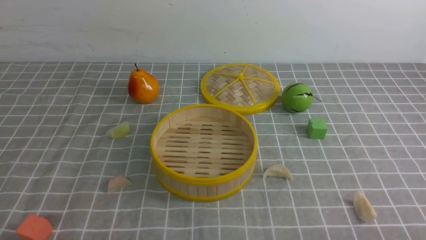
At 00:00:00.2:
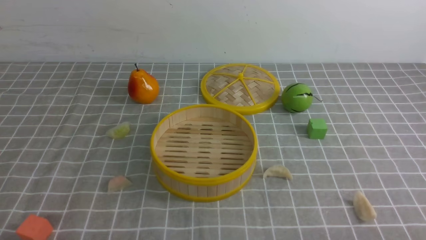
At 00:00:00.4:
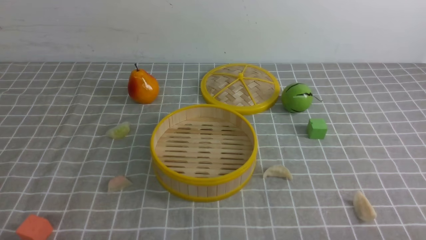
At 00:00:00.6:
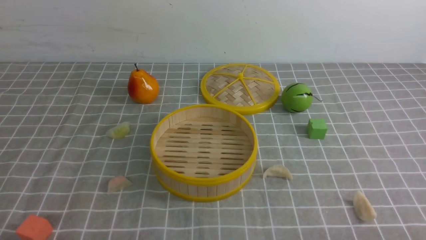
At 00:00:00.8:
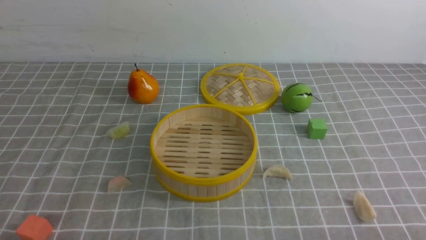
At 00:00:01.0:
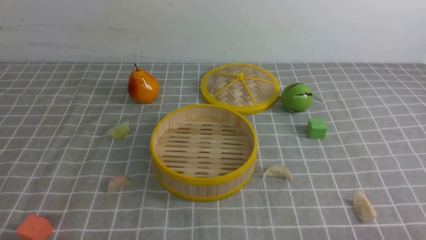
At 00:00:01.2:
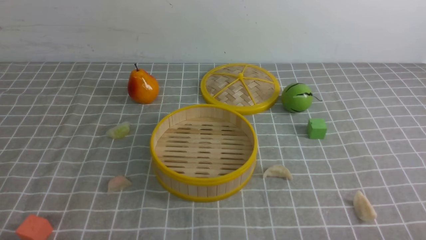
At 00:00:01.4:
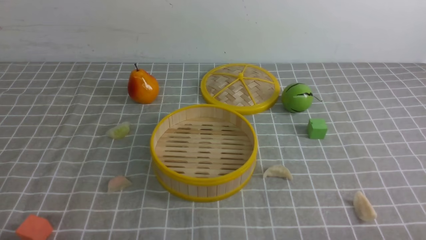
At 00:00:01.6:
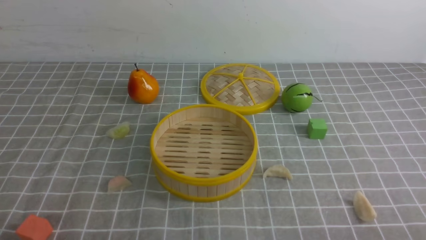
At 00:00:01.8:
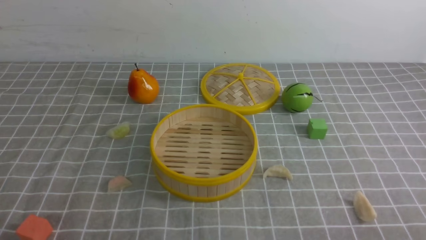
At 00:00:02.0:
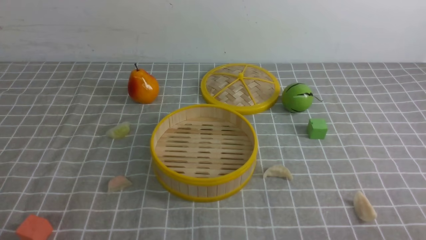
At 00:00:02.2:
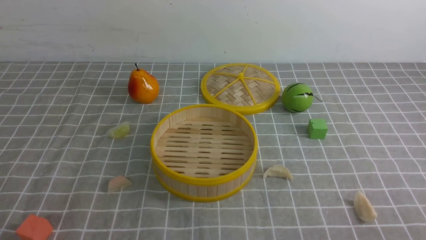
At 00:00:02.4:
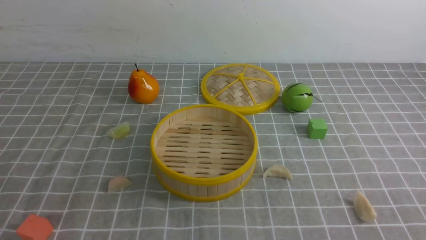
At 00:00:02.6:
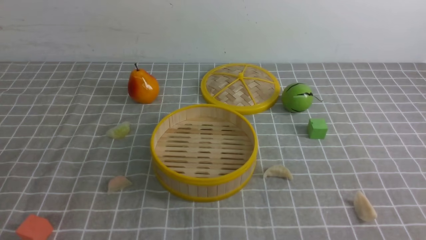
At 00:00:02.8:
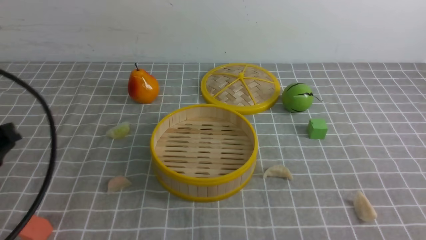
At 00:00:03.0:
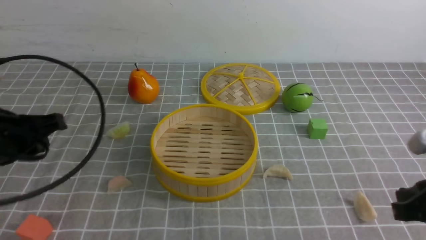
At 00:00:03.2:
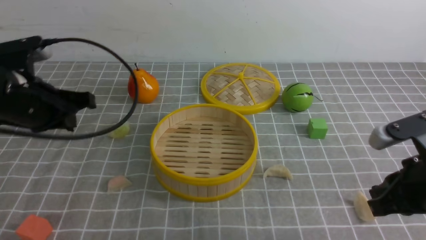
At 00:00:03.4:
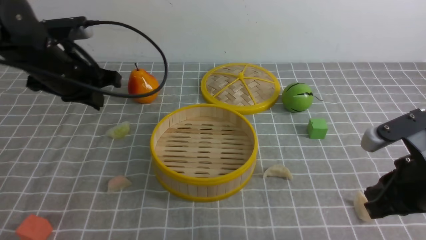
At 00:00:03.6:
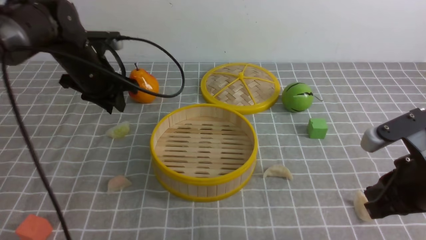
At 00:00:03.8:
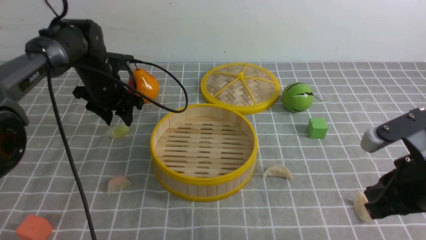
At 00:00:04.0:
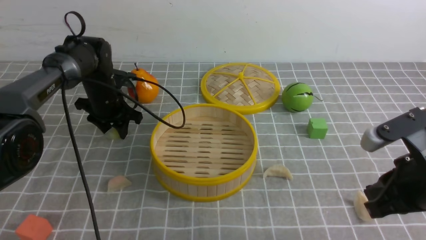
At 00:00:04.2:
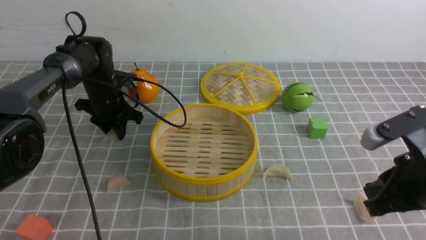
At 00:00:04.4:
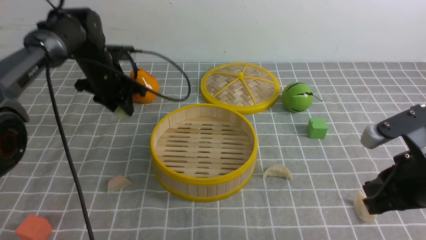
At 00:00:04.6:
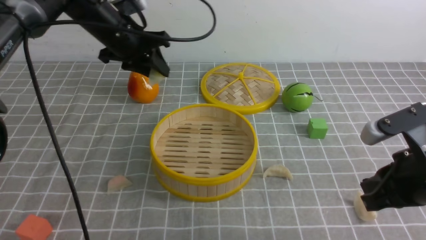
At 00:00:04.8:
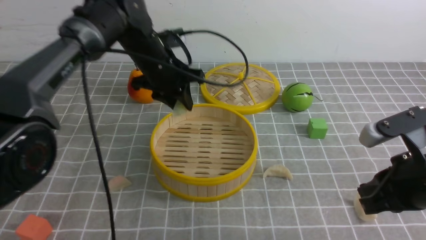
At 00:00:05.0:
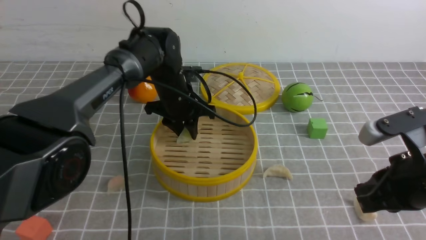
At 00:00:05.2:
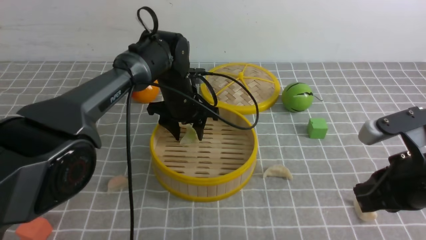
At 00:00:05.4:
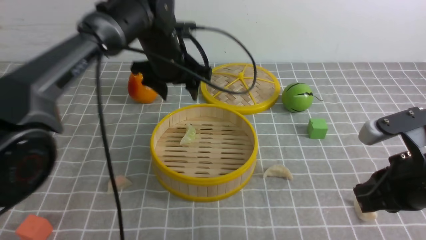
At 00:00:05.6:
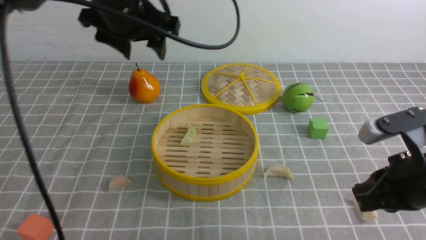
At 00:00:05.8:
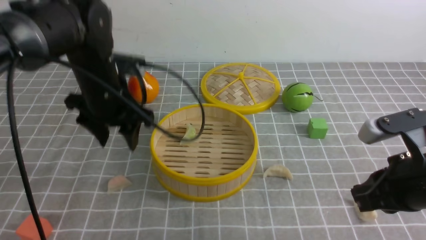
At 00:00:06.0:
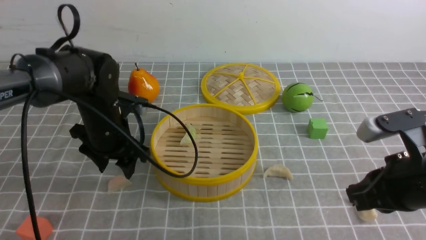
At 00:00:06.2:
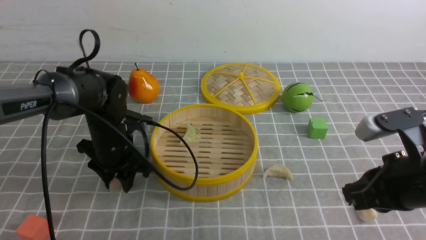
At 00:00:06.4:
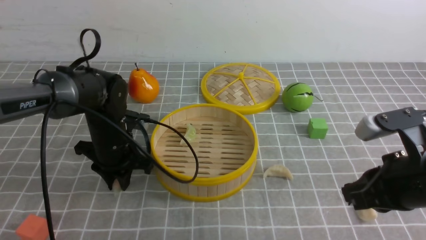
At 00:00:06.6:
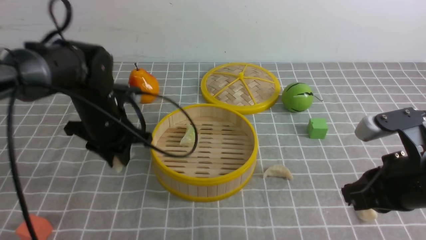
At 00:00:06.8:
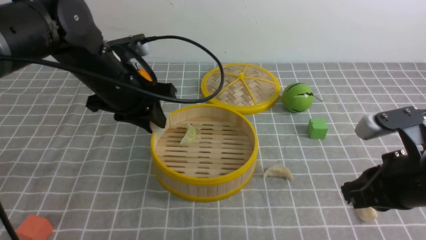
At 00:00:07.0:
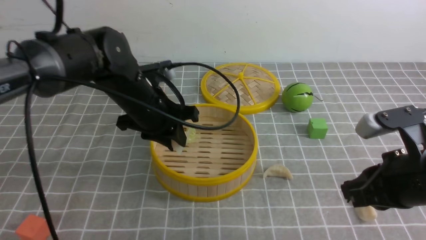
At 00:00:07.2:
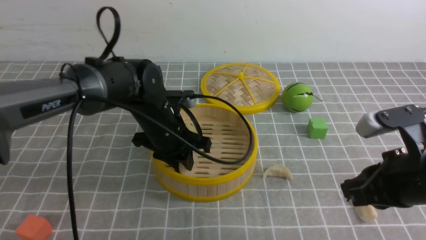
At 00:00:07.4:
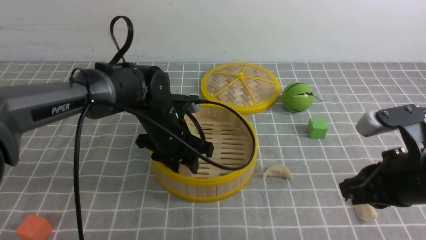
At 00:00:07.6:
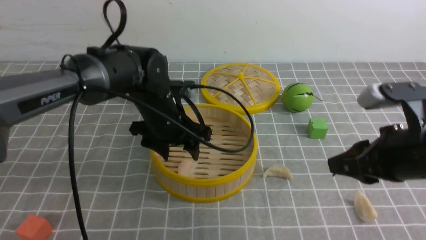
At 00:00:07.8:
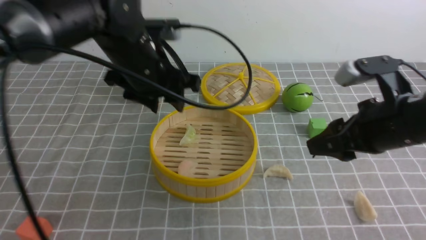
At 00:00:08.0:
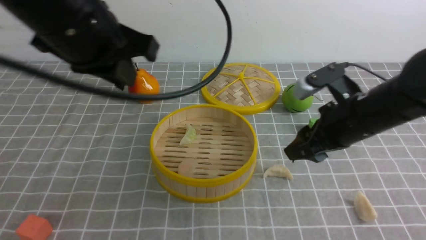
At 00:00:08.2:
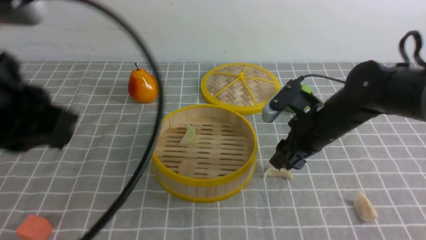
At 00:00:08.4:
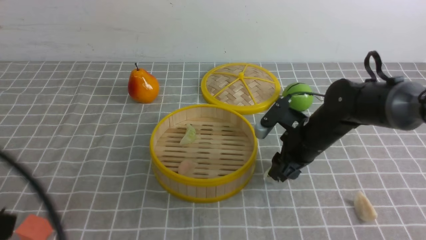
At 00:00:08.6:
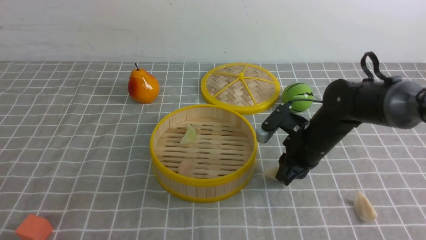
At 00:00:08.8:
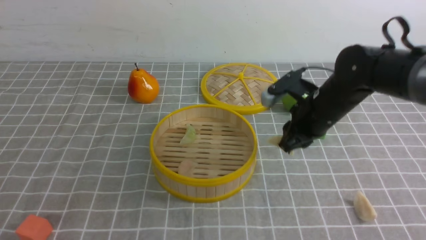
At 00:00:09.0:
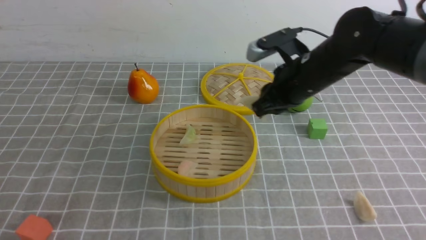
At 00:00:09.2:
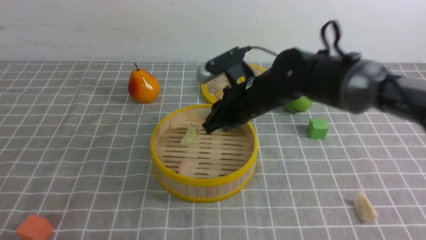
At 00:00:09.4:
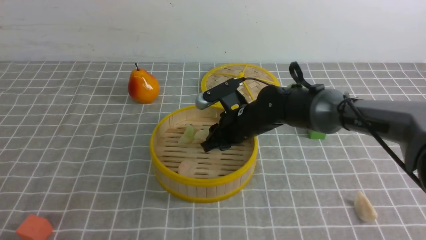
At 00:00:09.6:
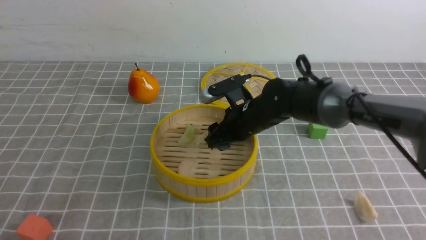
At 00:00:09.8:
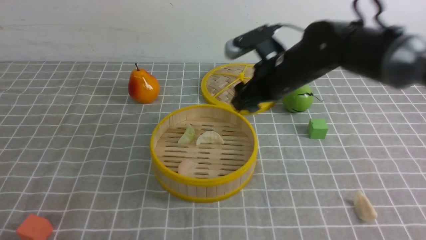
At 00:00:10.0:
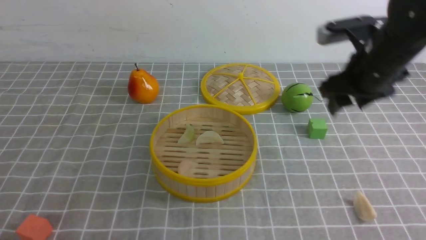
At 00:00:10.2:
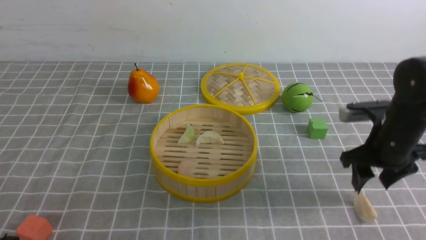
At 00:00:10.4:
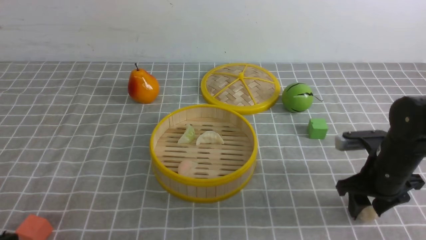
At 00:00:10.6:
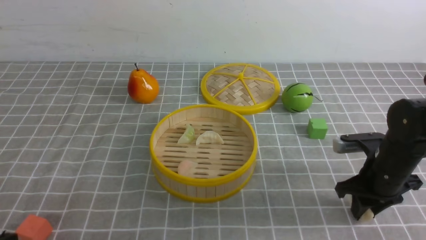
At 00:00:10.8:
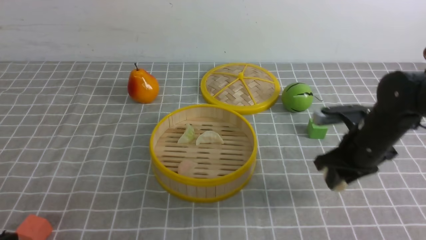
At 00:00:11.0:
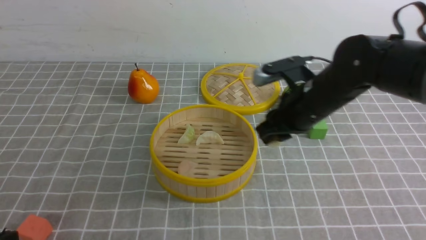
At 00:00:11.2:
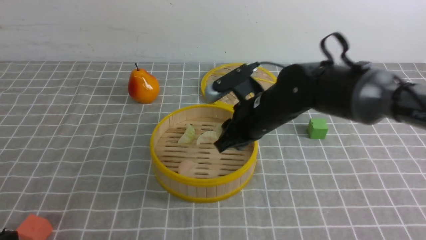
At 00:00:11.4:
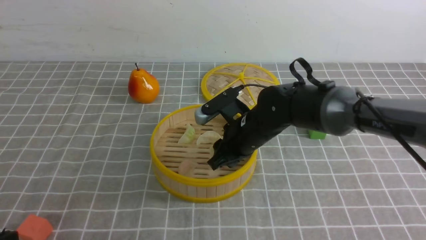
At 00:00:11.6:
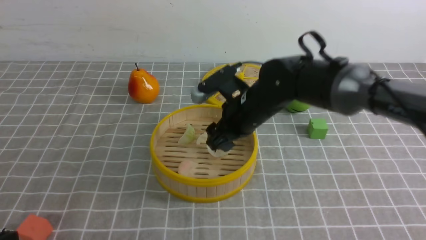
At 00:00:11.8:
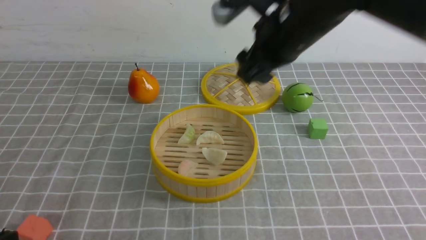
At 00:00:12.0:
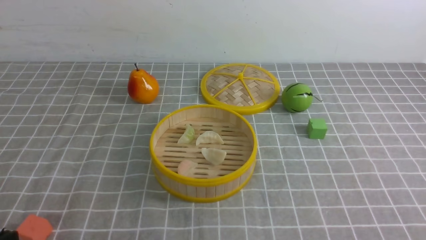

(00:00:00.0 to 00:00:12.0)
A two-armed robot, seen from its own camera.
Task of the whole recording: put the dumplings into the steamer on the table with the grey tablecloth.
Step, 00:00:00.0 - 00:00:04.2: use the left arm to grab a dumpling.
Step, 00:00:04.4 - 00:00:05.6: use the left arm to put the dumpling into the steamer.
Step, 00:00:05.8 - 00:00:06.6: use the left arm to grab a dumpling.
Step, 00:00:06.8 - 00:00:07.8: use the left arm to put the dumpling into the steamer.
Step, 00:00:08.0 - 00:00:08.8: use the right arm to grab a dumpling.
Step, 00:00:09.0 - 00:00:09.6: use the right arm to put the dumpling into the steamer.
Step, 00:00:09.8 - 00:00:10.8: use the right arm to grab a dumpling.
Step, 00:00:11.0 - 00:00:11.8: use the right arm to put the dumpling into the steamer.
00:00:01.6 - 00:00:03.0: Both grippers move forward and upward, some 20 cm. The right gripper closes its fingers.
00:00:03.0 - 00:00:04.4: The left gripper travels forward by roughly 25 cm.
00:00:04.4 - 00:00:06.0: The left gripper goes approximately 10 cm backward, and opens.
00:00:06.0 - 00:00:07.6: The left gripper heads to the right and upward, covering approximately 10 cm, and closes, then reopens. Meanwhile the right gripper opens.
00:00:07.6 - 00:00:09.0: The left gripper is displaced backward and to the left by approximately 40 cm, and closes up, while the right gripper is displaced forward and to the left by about 20 cm, and opens, then closes again.
00:00:09.0 - 00:00:10.4: The right gripper moves to the right, downward and backward, roughly 20 cm, and opens.
00:00:10.4 - 00:00:12.0: The right gripper moves upward, some 30 cm, and closes its fingers.

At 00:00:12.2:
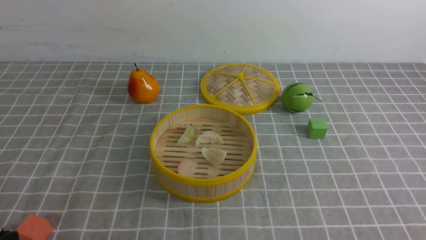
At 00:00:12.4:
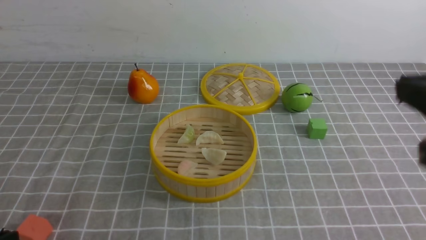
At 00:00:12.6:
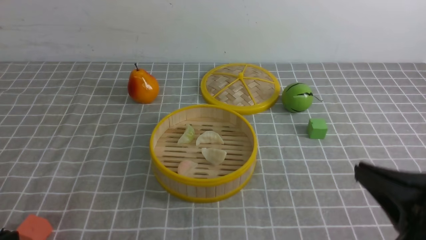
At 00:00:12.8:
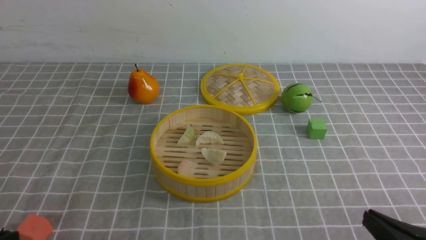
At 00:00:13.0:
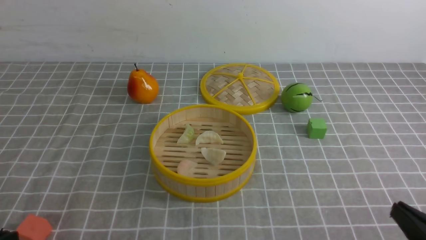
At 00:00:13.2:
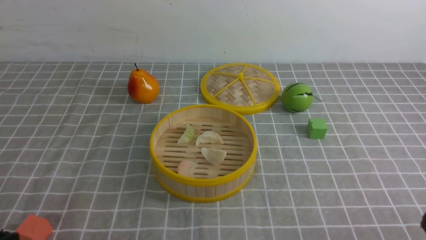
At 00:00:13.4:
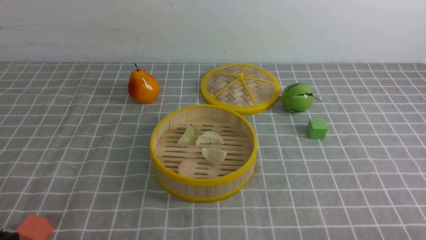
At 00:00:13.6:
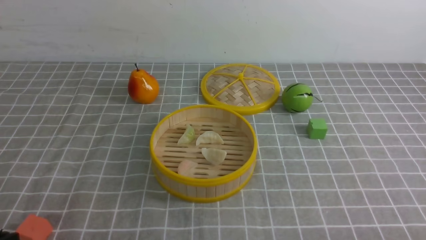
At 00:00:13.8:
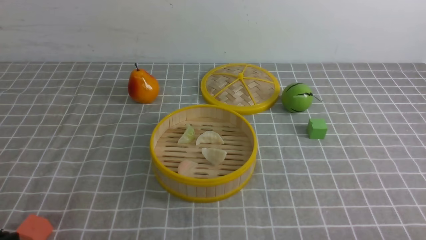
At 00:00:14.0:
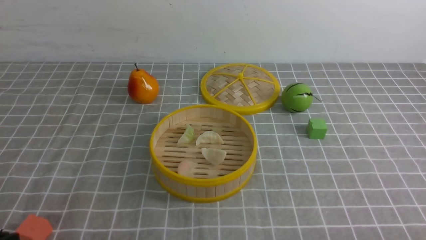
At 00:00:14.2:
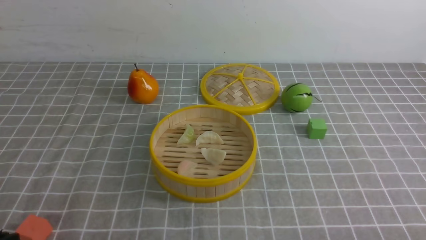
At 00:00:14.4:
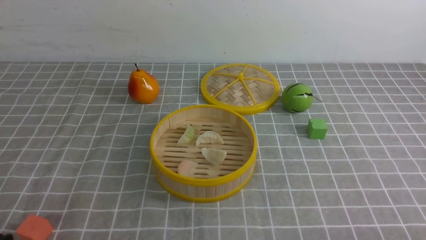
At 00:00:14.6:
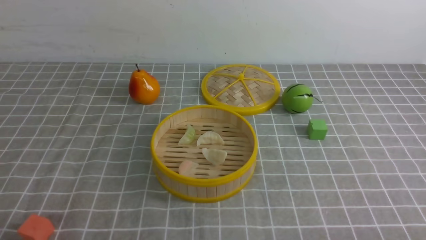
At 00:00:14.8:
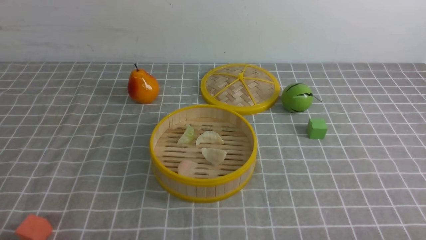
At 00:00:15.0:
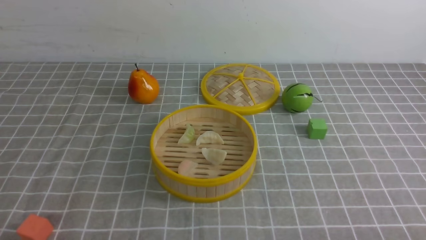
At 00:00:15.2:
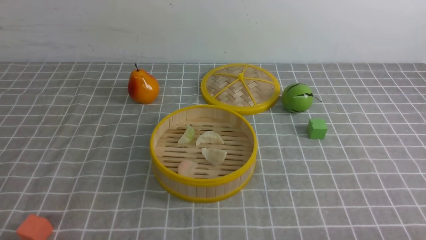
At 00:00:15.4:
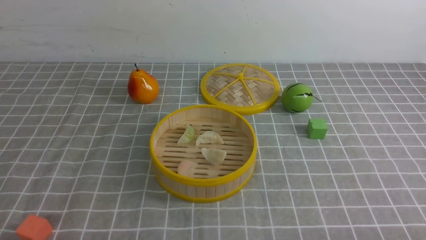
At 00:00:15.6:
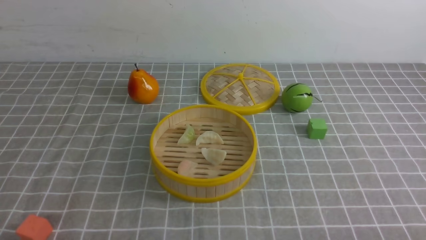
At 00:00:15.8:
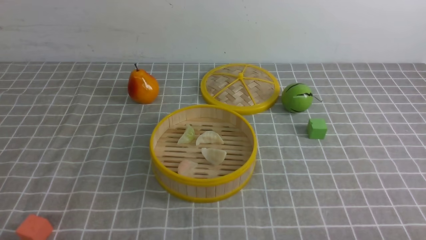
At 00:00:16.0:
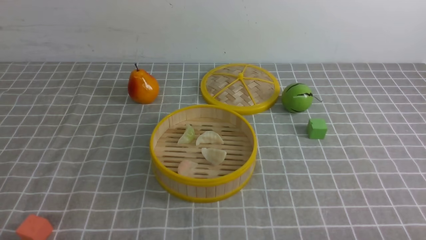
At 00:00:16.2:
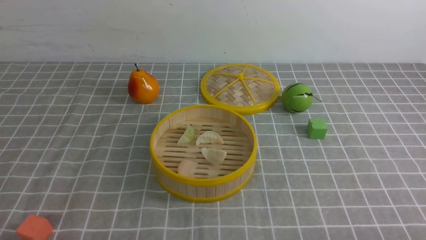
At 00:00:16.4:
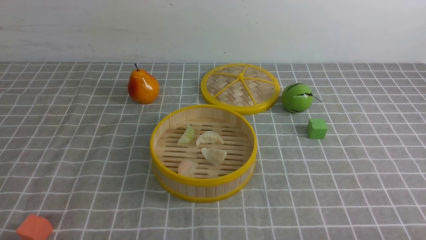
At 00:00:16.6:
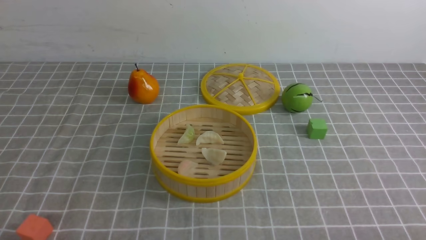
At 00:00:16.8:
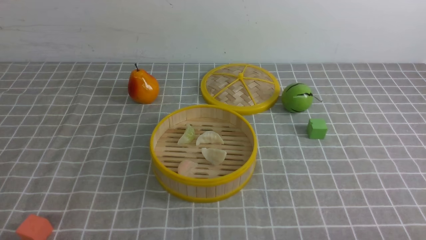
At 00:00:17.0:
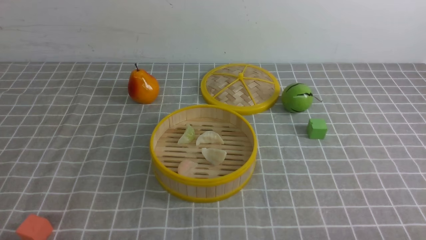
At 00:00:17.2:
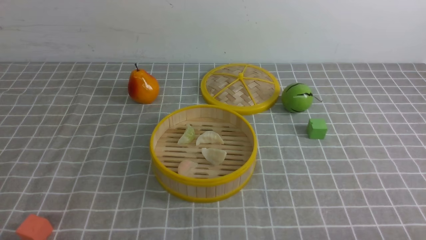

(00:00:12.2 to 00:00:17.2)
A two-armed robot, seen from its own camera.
Task of the whole recording: put the dumplings into the steamer on the table with the grey tablecloth.
00:00:15.6 - 00:00:17.2: Both grippers stay about where they are.
